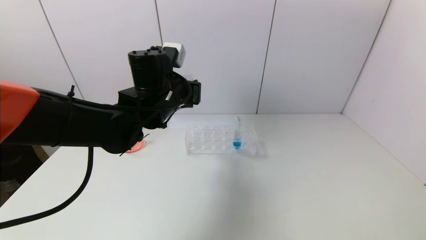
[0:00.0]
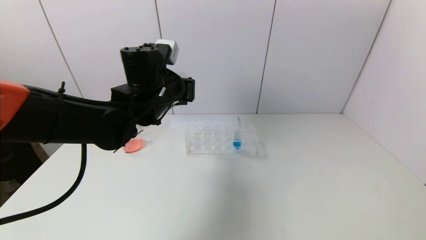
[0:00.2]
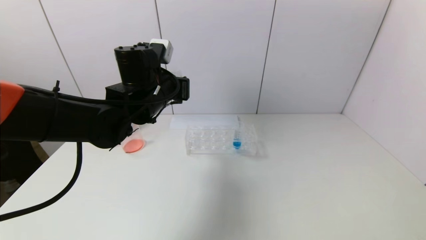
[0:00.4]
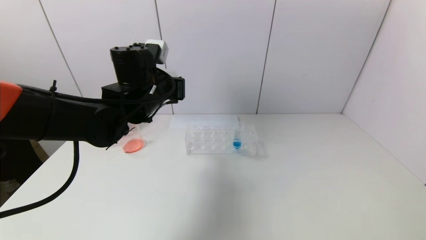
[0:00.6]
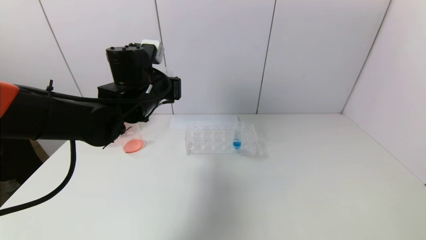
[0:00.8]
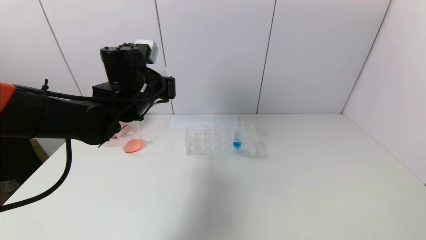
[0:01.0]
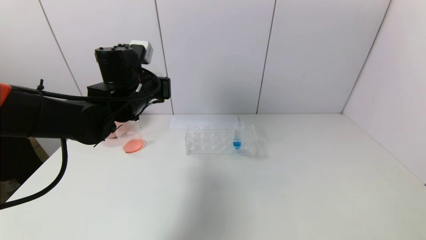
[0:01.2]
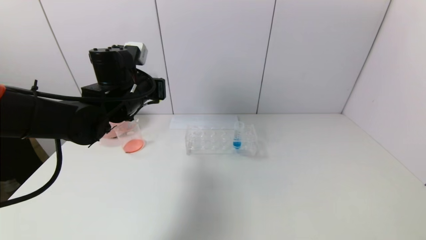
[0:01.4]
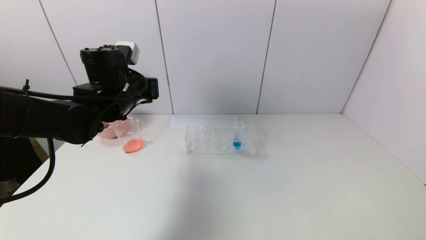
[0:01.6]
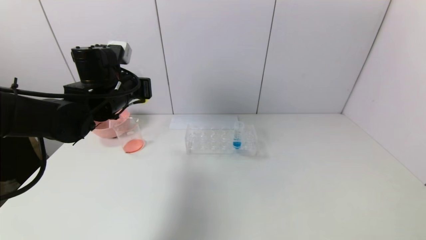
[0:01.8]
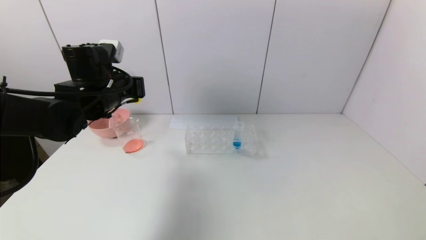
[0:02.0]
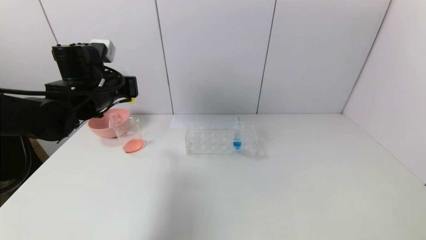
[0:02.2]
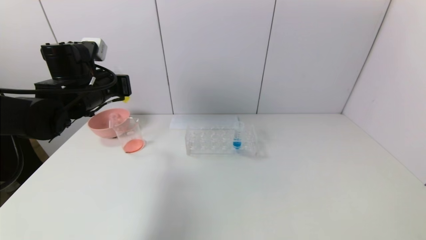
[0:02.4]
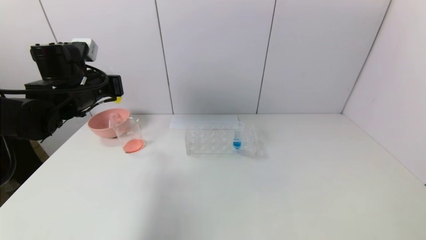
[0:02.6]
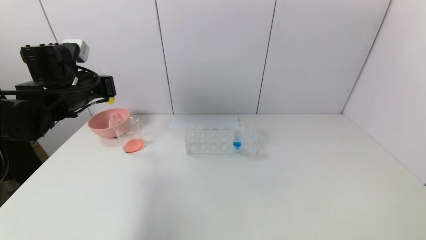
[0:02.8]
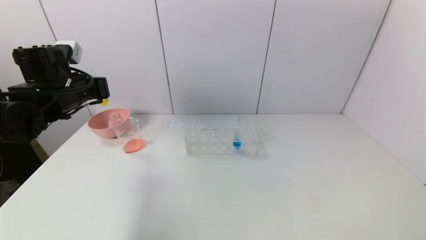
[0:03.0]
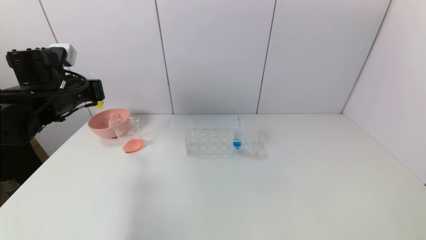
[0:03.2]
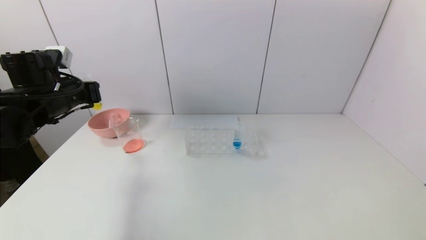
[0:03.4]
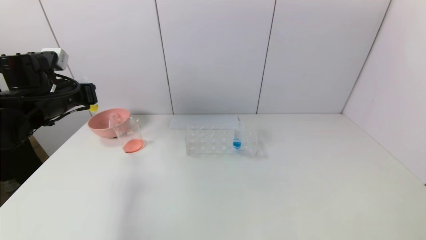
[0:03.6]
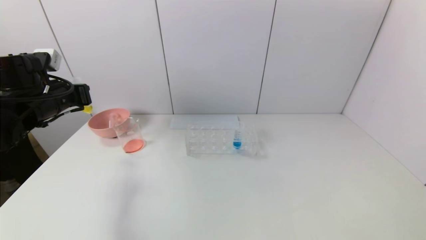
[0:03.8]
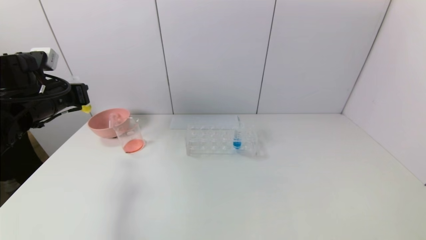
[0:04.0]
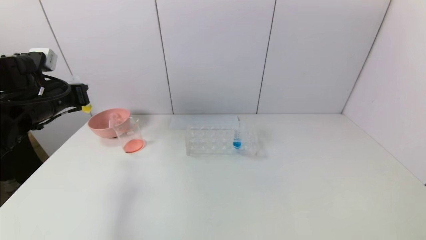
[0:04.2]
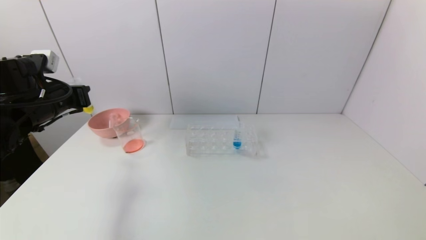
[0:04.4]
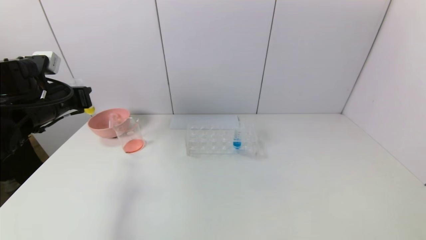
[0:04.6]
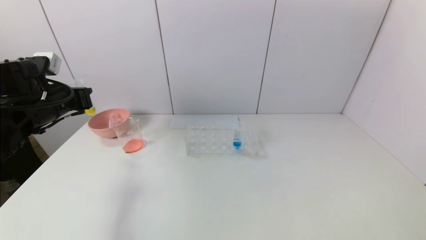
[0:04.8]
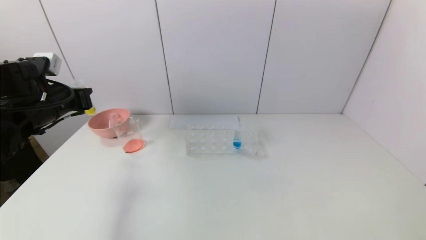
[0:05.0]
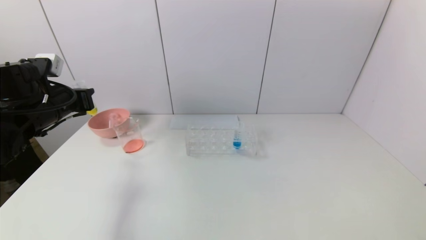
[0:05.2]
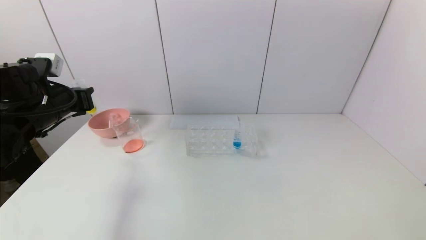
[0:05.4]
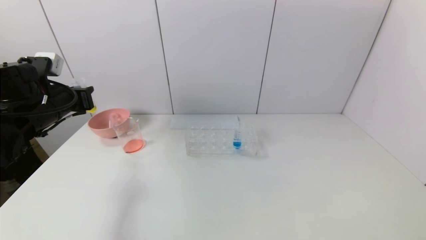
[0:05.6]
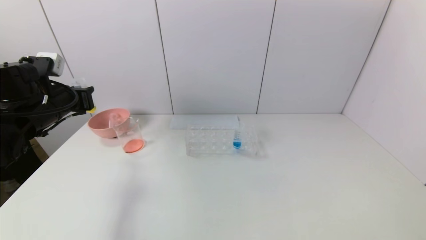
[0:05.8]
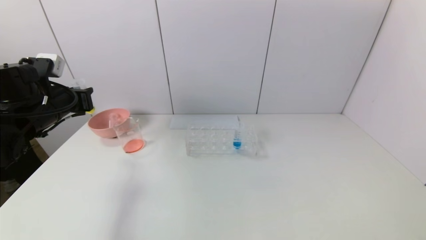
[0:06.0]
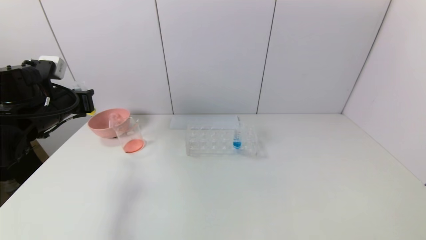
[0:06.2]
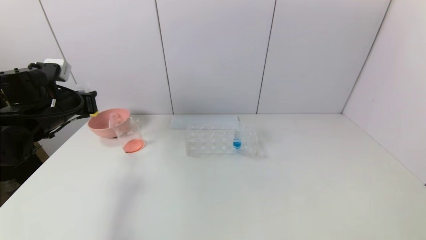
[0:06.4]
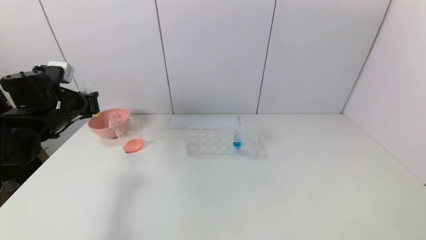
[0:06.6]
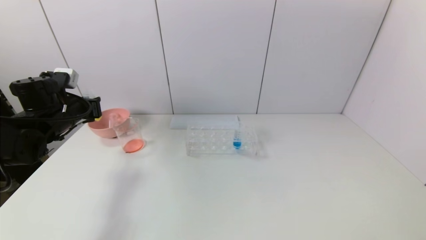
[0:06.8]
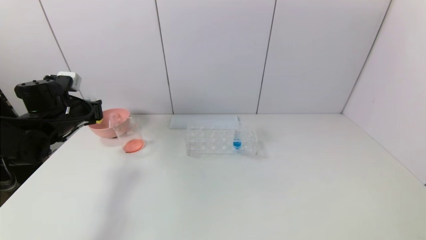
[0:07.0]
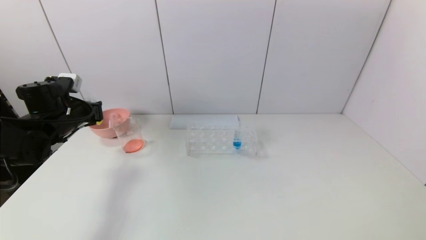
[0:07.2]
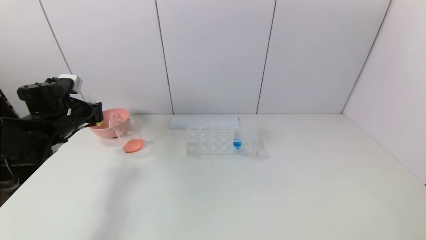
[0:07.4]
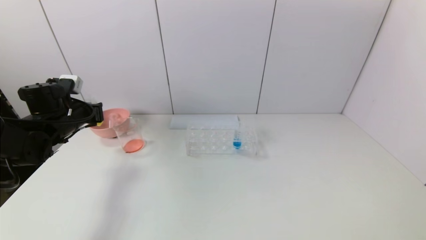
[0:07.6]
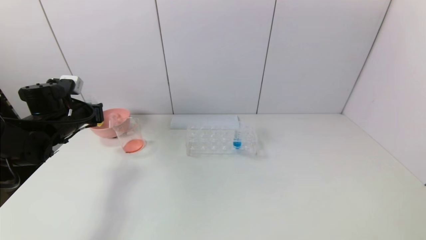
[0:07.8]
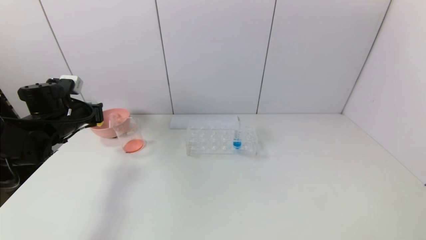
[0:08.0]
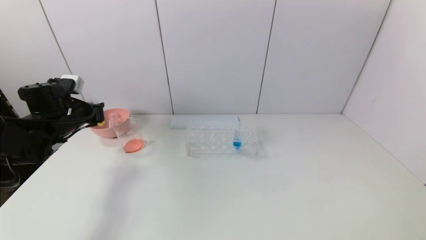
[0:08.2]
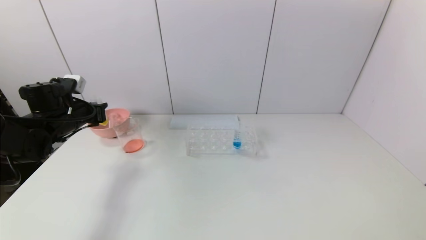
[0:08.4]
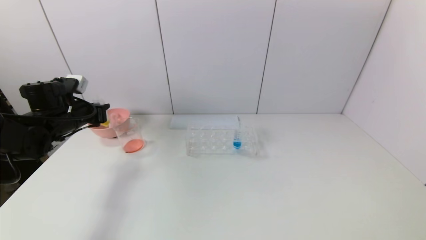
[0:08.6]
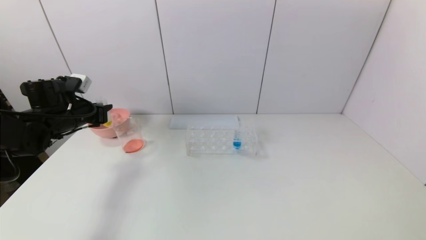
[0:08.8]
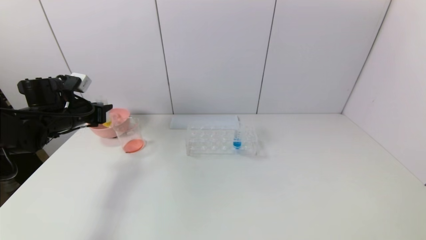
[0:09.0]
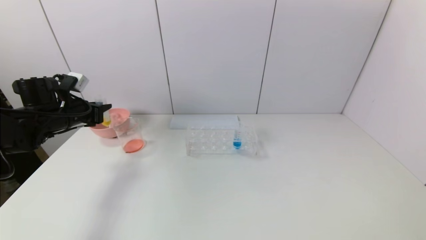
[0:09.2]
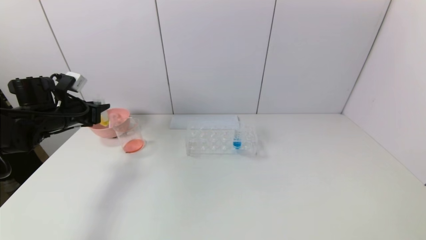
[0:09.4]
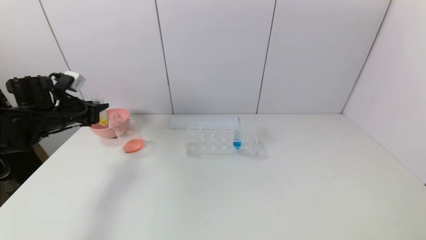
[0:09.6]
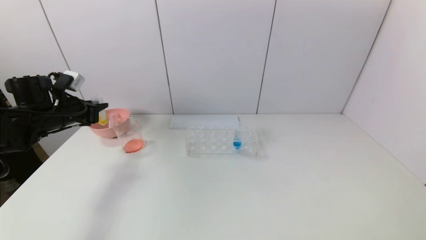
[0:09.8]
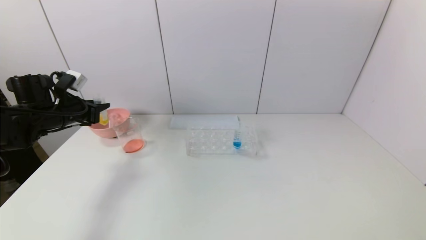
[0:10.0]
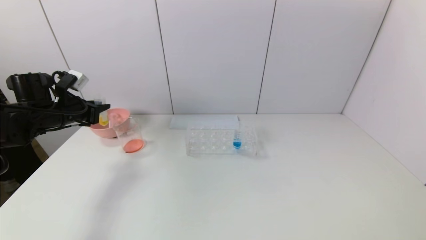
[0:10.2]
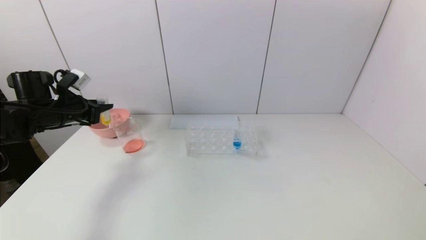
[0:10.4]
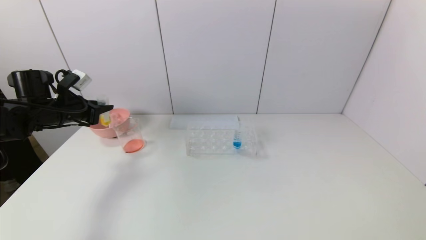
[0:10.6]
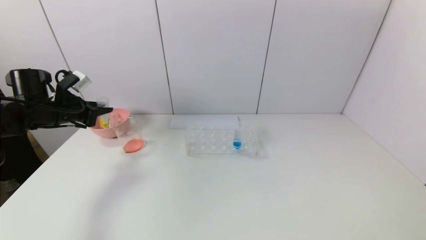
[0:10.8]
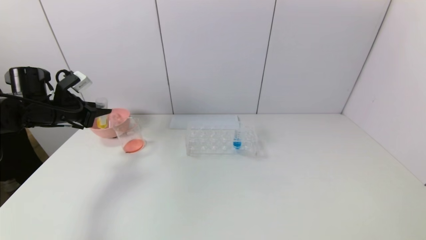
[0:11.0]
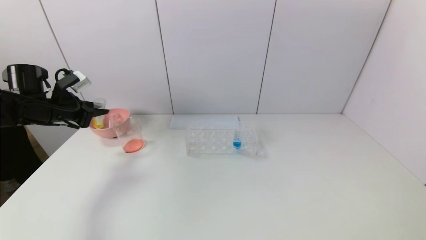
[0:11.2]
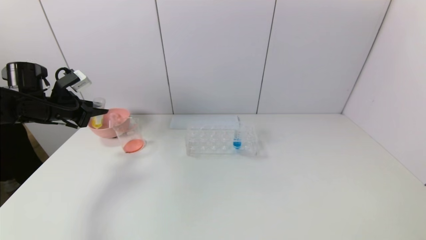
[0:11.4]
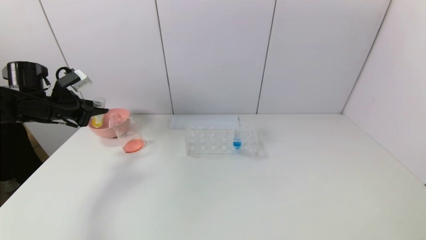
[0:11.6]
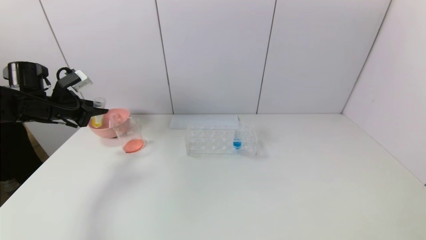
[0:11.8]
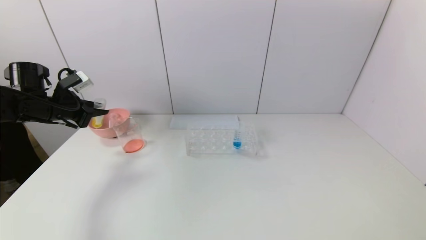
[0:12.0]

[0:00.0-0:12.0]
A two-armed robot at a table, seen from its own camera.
Task of the whole recording: pick up the test tube with yellow pigment and the test tube with red pigment by grippers and pour them into the beaker.
0:00.0 to 0:01.6: The left gripper heads to the left, covering some 10 cm.
0:01.6 to 0:03.0: The left gripper is displaced to the left by some 10 cm.
0:03.0 to 0:06.0: There are only small adjustments of the grippers.
0:06.0 to 0:07.6: The left gripper is displaced downward by approximately 5 cm.
0:07.6 to 0:09.0: There are only small adjustments of the grippers.
0:09.0 to 0:10.4: The grippers make only small movements.
0:10.4 to 0:12.0: The grippers move only a little.

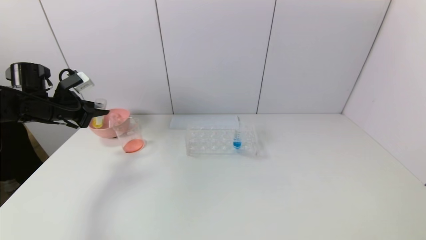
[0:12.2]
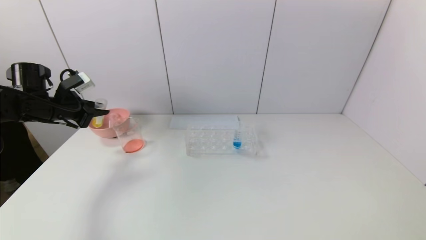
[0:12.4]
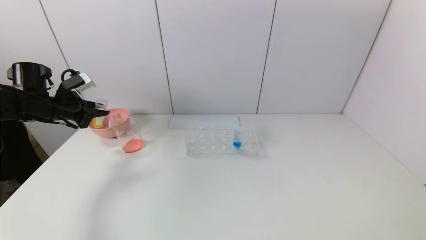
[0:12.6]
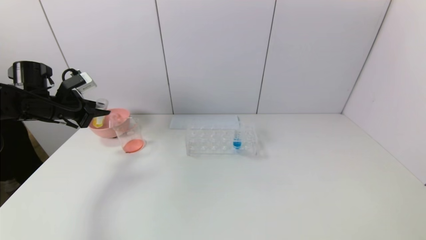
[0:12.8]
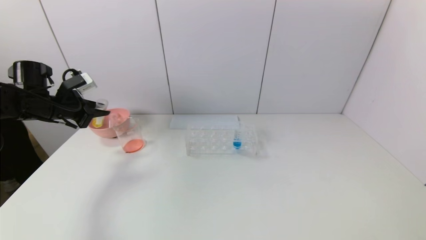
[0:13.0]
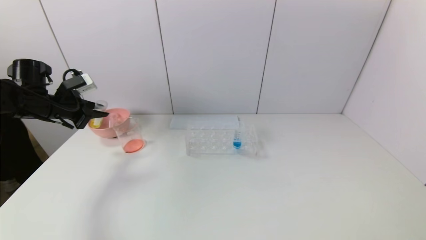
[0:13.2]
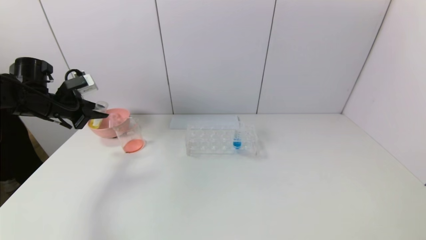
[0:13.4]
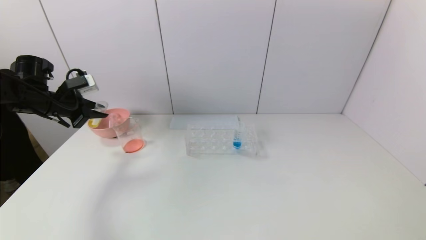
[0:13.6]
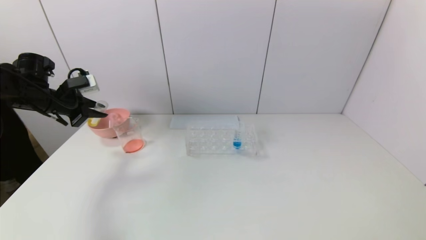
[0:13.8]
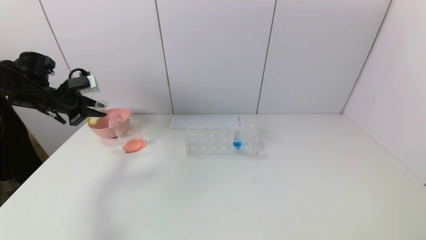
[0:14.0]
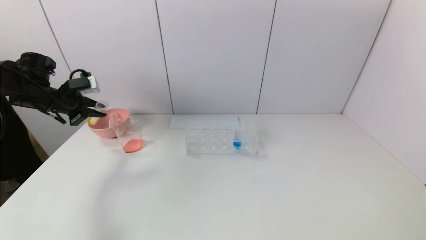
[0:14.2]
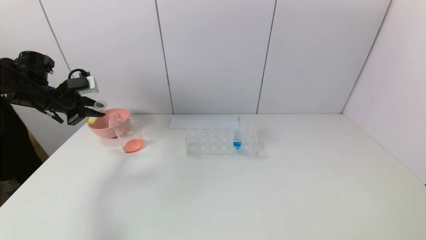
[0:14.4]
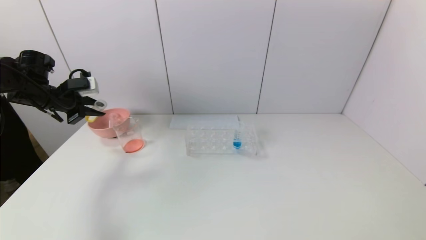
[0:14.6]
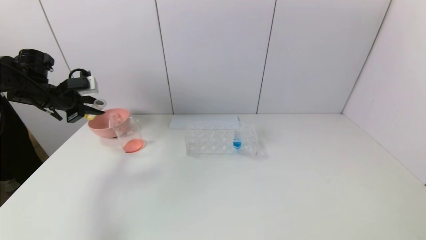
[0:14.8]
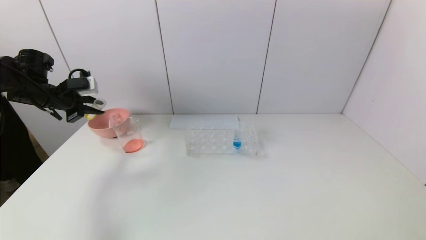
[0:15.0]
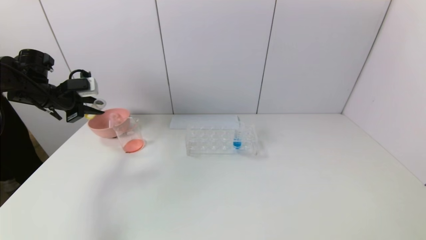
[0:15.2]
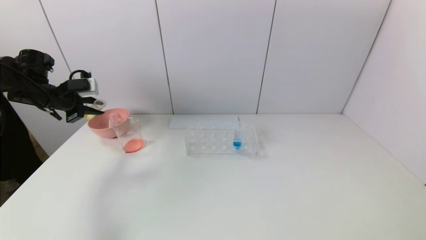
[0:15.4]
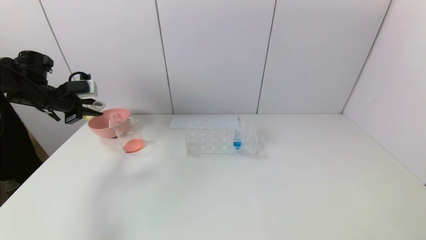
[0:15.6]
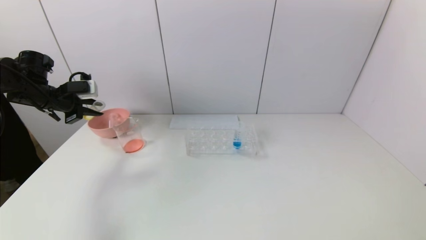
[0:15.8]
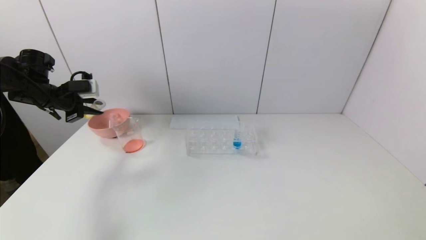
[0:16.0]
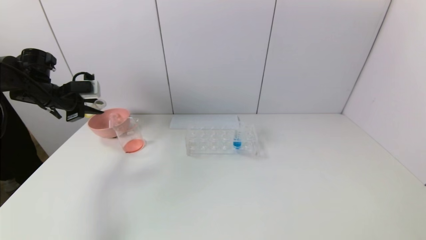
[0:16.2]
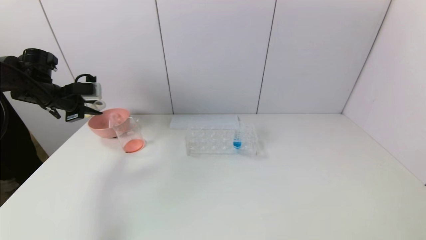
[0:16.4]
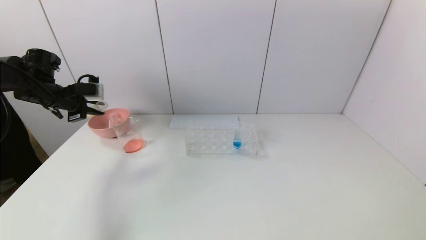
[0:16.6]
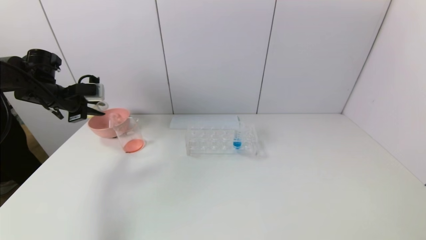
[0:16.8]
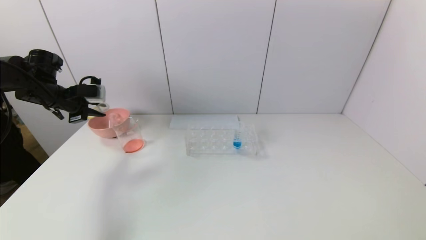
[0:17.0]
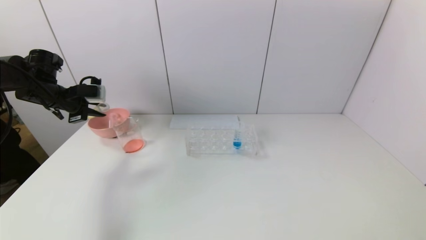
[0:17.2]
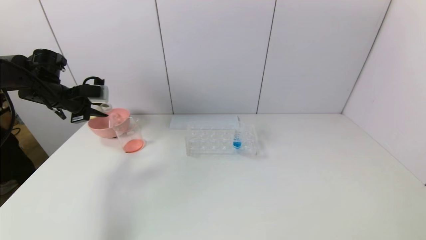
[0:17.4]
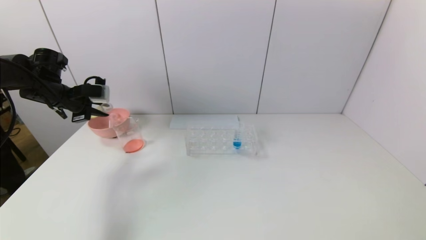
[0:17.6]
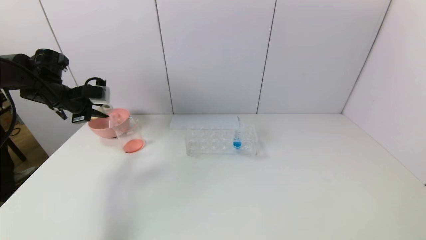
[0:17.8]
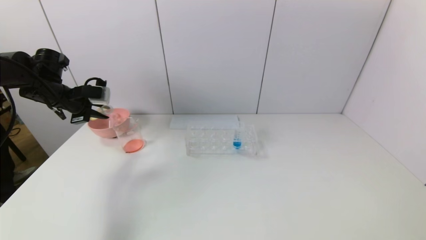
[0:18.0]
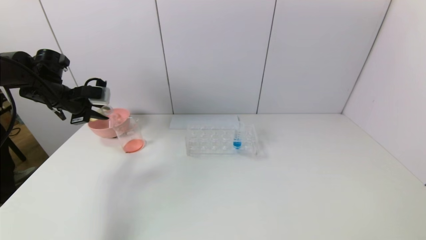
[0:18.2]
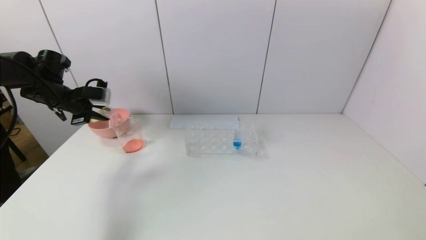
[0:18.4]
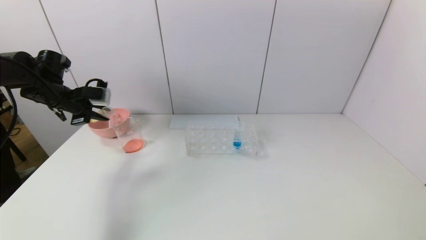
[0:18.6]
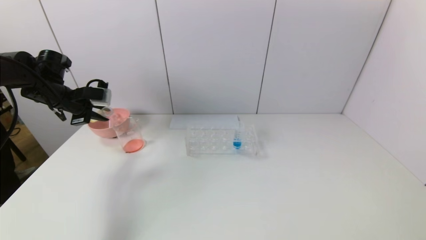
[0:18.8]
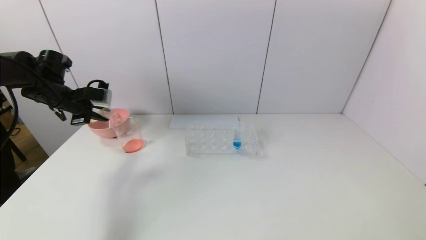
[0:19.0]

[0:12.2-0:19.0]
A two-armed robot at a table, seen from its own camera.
Task of the whole recording: pick up the test tube with yellow pigment and the test tube with red pigment by grippers and pour them into the beaker.
0:12.2 to 0:13.6: The grippers make only small movements.
0:13.6 to 0:15.0: The grippers make only small movements.
0:15.0 to 0:19.0: The grippers move only a little.
